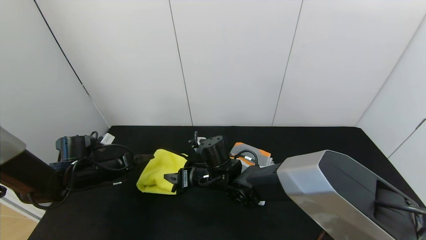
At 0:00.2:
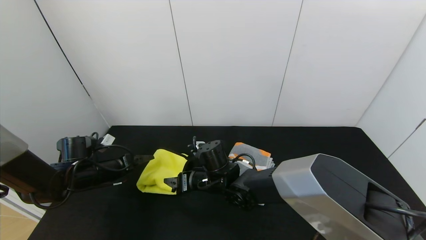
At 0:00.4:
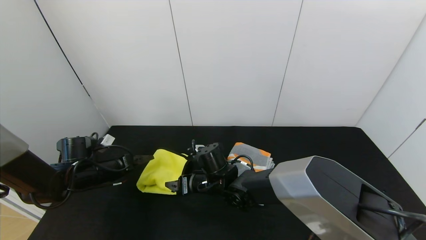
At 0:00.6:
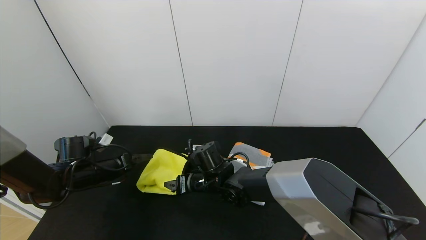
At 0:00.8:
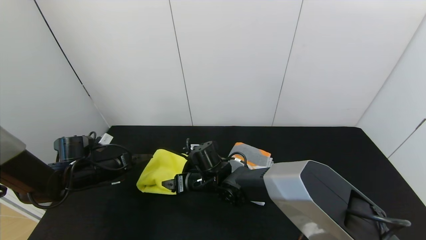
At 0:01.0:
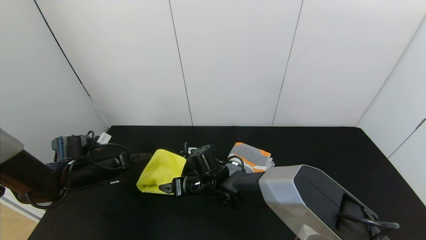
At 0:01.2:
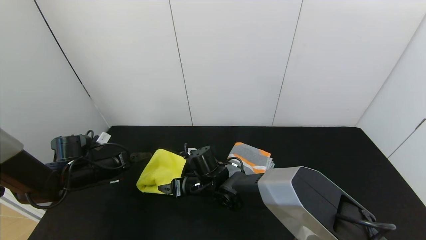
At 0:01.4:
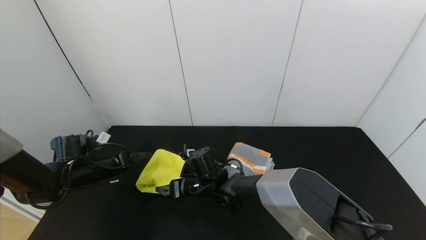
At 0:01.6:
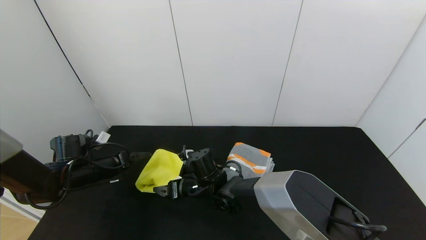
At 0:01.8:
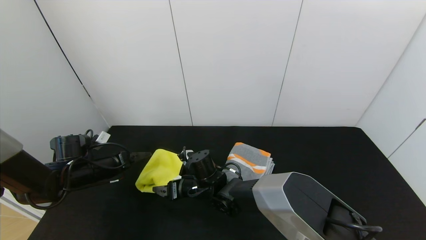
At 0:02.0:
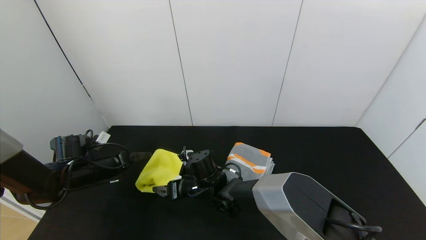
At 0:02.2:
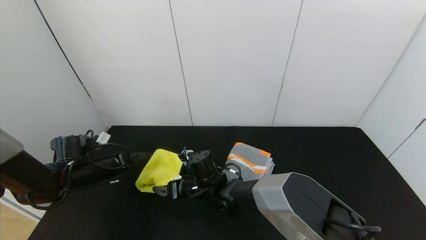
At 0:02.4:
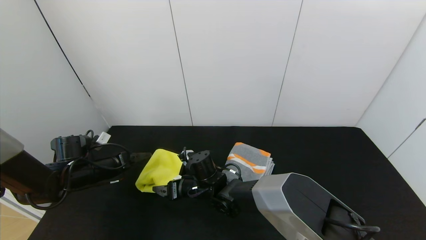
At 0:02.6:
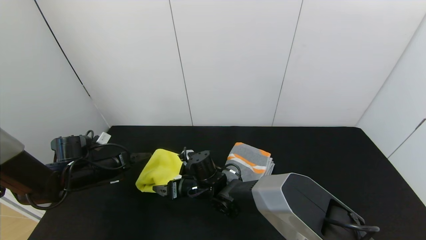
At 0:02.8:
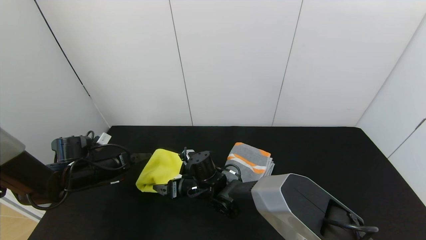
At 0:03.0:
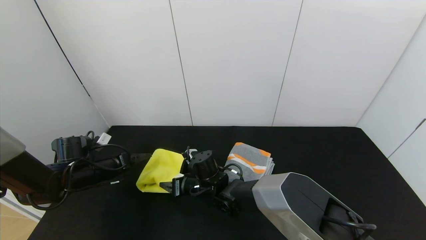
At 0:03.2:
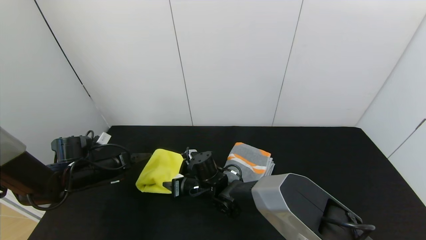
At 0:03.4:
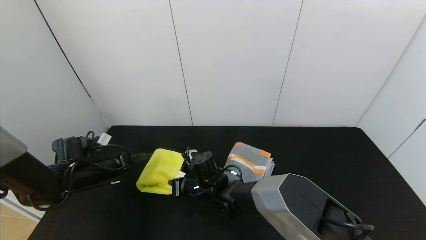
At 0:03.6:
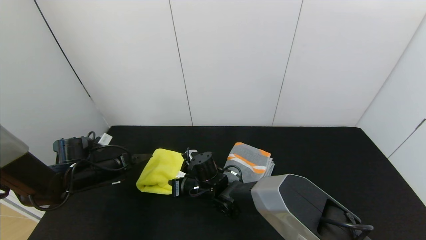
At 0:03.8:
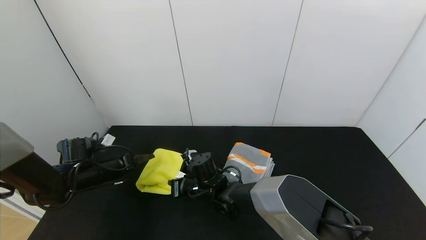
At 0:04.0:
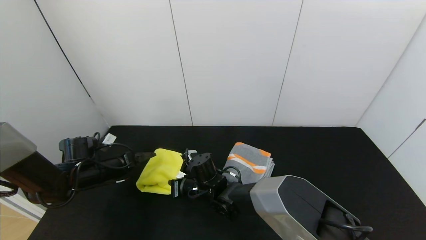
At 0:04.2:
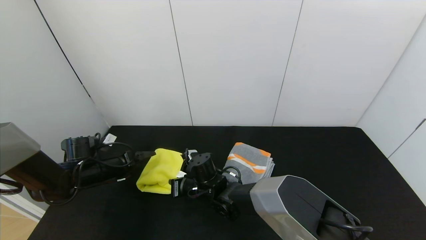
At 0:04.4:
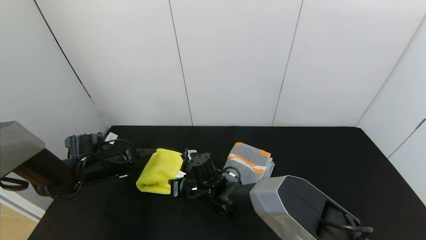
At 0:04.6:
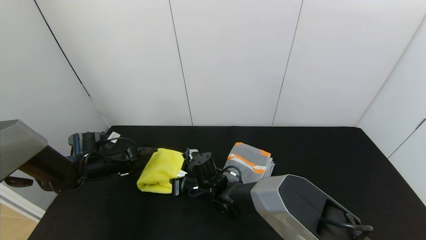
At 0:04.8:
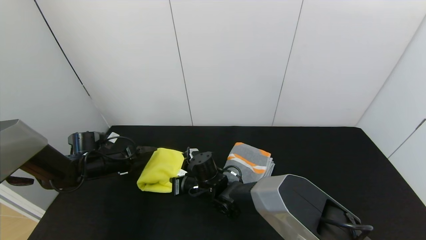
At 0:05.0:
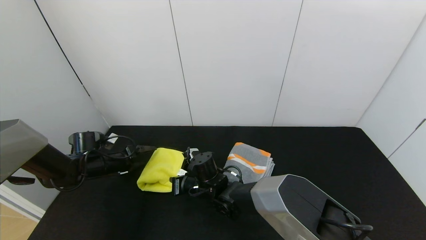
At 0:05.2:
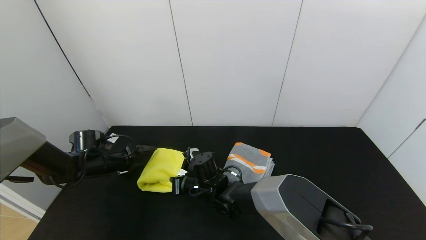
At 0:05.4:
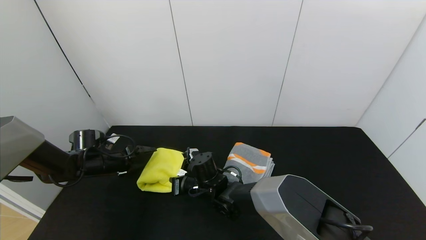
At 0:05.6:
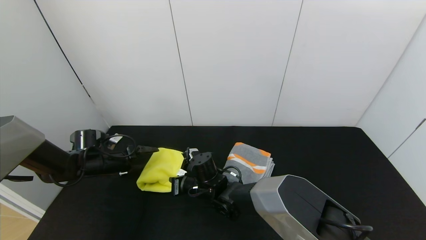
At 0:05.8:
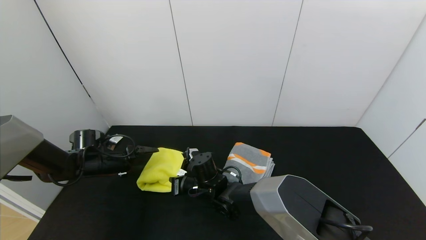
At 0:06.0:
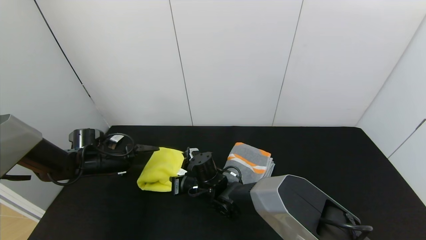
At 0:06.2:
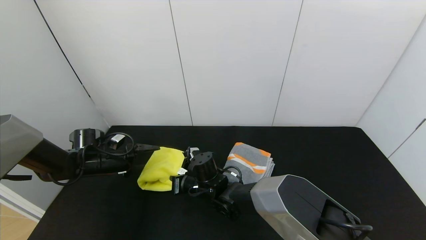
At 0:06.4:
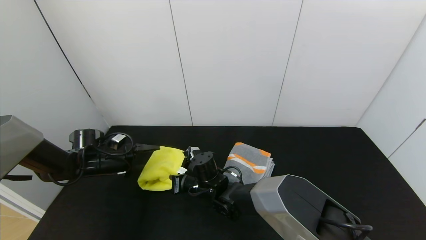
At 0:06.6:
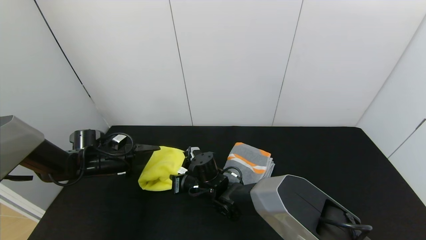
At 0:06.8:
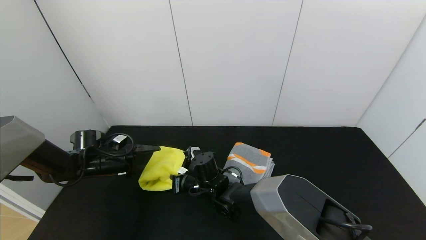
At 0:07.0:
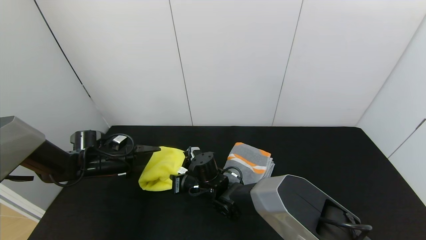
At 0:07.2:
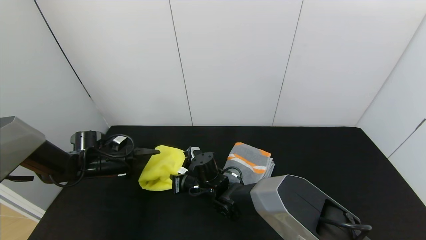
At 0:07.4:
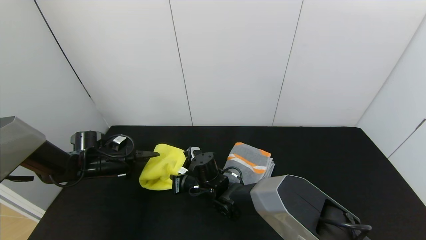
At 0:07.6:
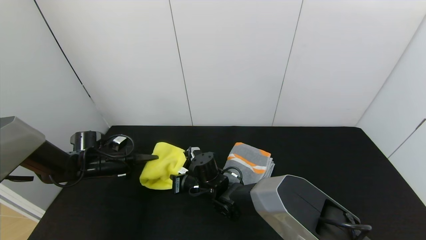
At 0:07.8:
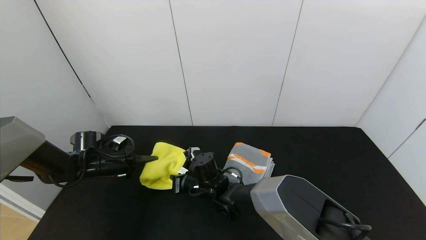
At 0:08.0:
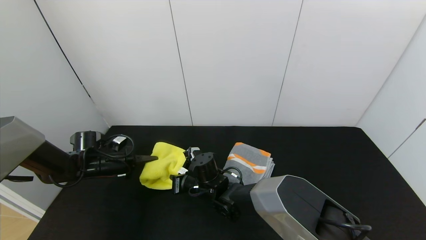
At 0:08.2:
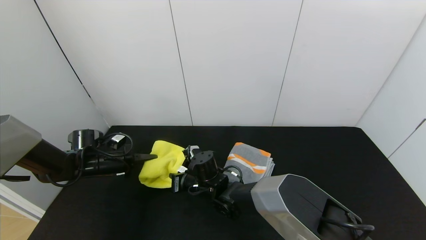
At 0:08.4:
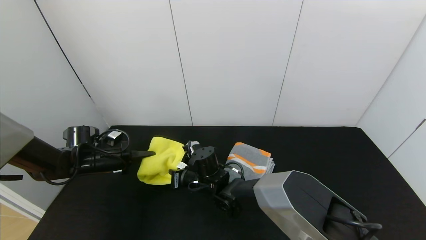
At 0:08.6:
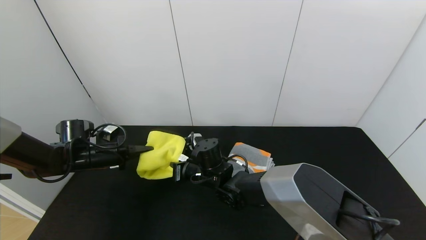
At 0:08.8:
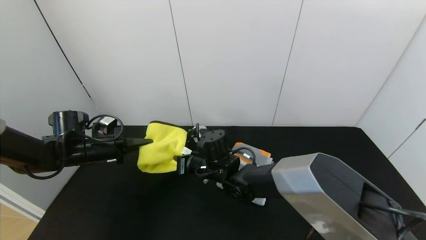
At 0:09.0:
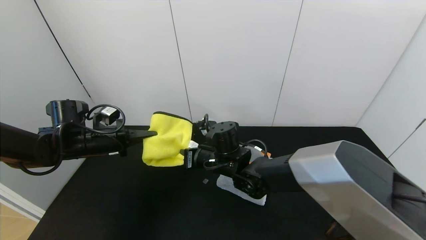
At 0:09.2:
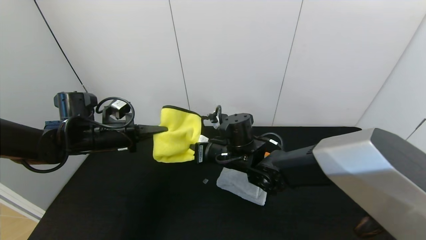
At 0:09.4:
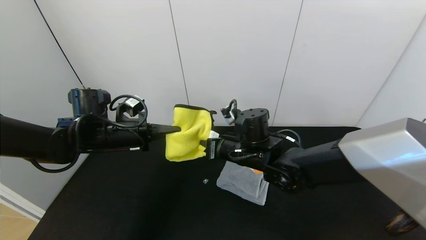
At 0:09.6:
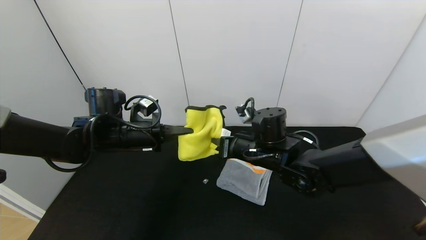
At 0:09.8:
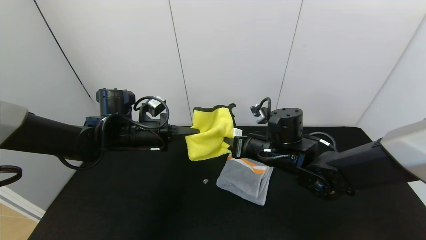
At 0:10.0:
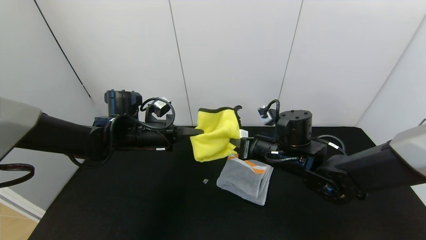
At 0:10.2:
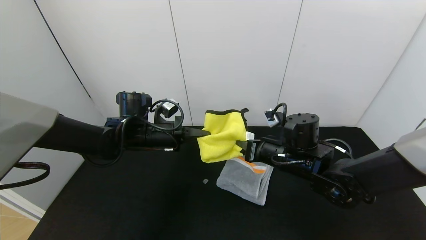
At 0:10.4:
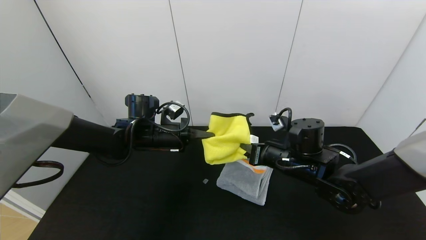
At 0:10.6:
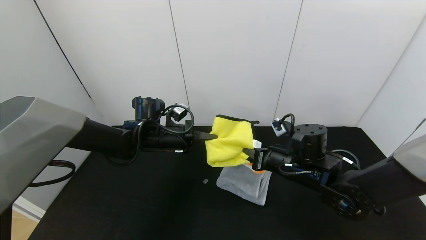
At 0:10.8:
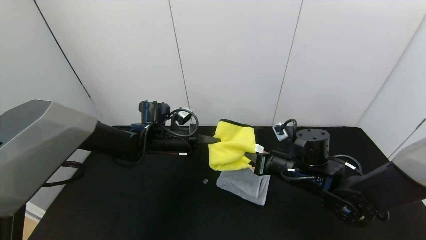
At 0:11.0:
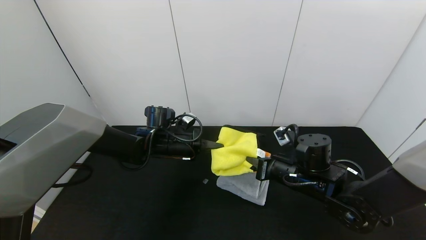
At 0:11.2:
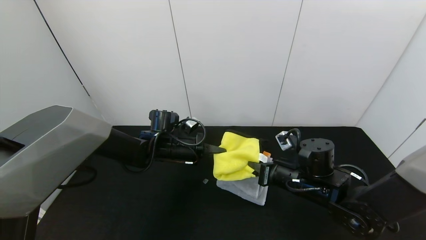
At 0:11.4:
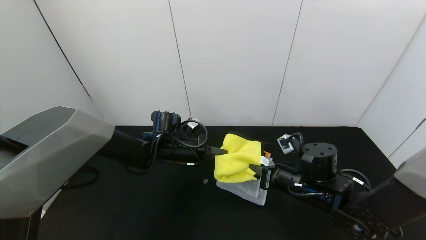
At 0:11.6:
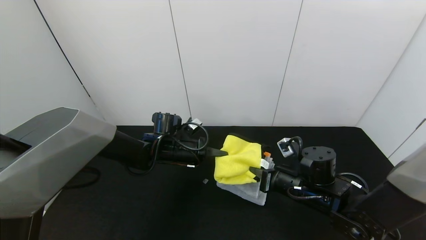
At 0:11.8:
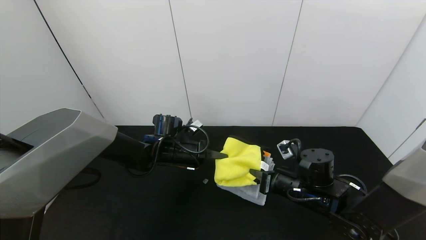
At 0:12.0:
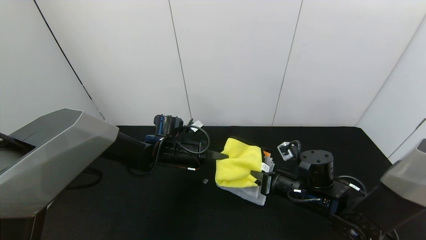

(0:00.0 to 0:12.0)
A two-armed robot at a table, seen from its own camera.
Task of the whole recording: Use the gripper to fold the yellow towel and grey towel in half twice,then put the yellow towel on the grey towel.
0:00.0 - 0:01.6: The right gripper ends up roughly 5 cm from where it was.
0:01.6 - 0:03.0: The grippers move only a little.
0:03.0 - 0:04.4: The right gripper closes.
0:06.0 - 0:07.6: The left gripper closes.
0:07.6 - 0:09.0: The left gripper heads upward, covering some 10 cm. Meanwhile the right gripper heads upward and to the right, covering approximately 10 cm.
0:09.0 - 0:10.4: Both grippers move to the right, roughly 15 cm.
0:10.4 - 0:12.0: The grippers both shift downward by approximately 5 cm.

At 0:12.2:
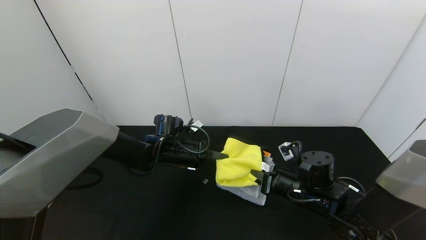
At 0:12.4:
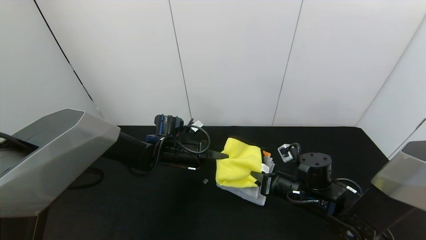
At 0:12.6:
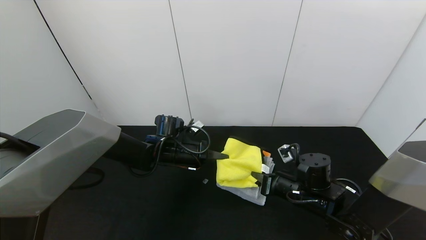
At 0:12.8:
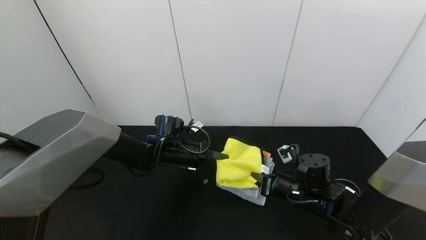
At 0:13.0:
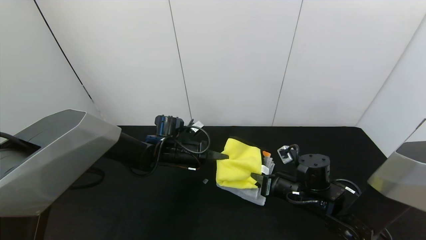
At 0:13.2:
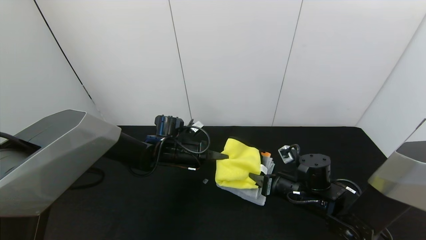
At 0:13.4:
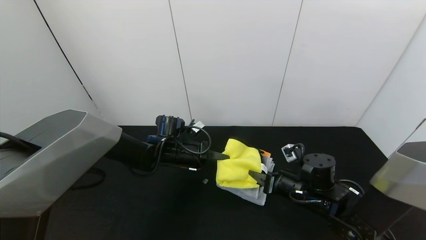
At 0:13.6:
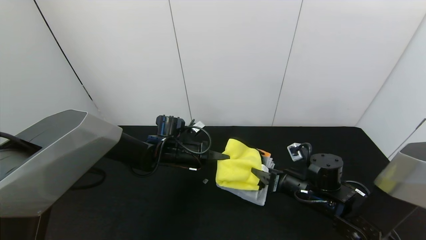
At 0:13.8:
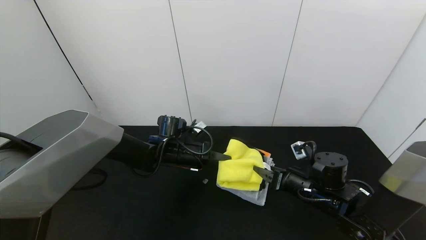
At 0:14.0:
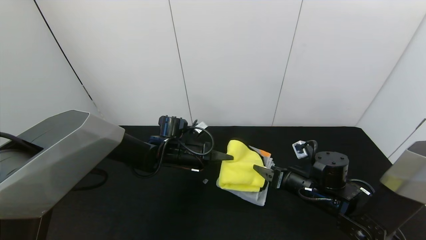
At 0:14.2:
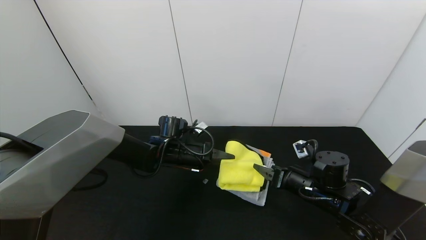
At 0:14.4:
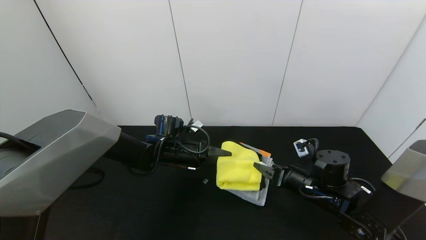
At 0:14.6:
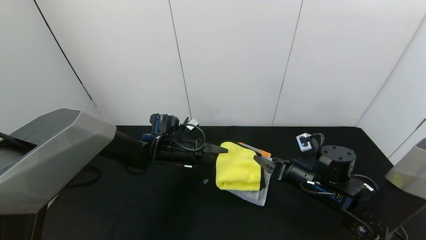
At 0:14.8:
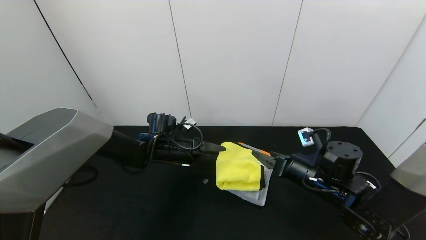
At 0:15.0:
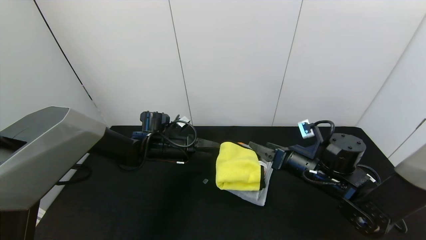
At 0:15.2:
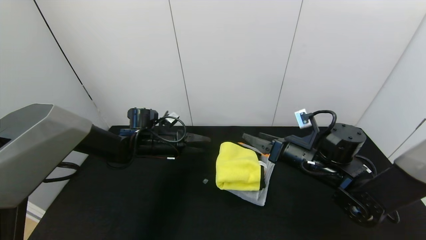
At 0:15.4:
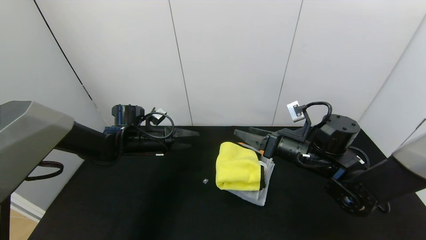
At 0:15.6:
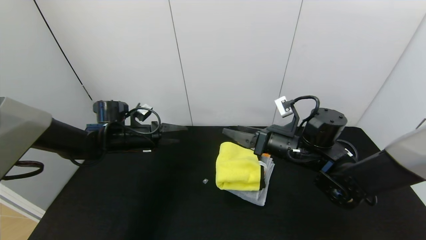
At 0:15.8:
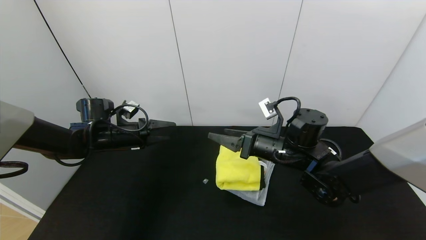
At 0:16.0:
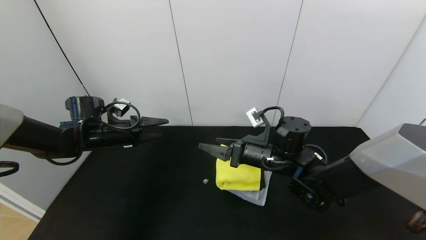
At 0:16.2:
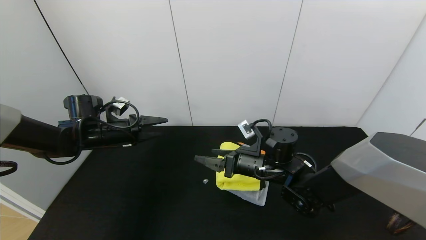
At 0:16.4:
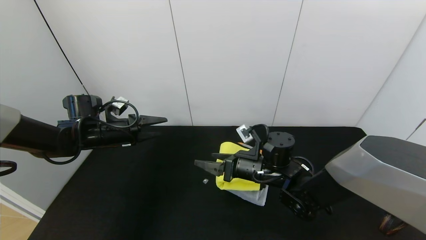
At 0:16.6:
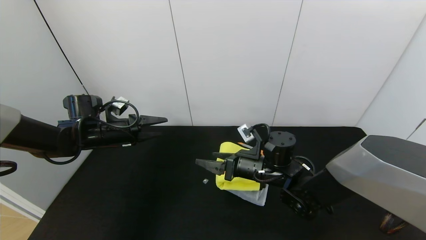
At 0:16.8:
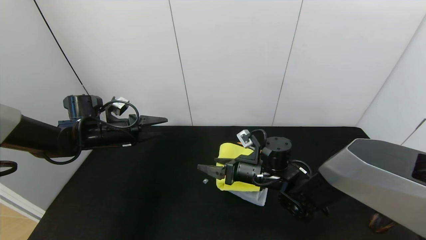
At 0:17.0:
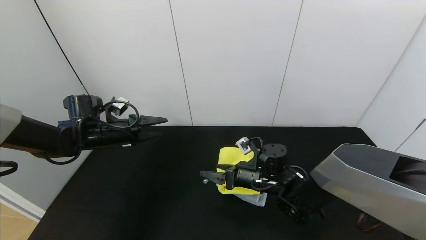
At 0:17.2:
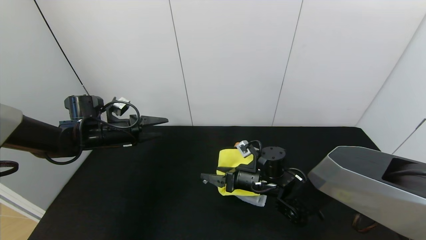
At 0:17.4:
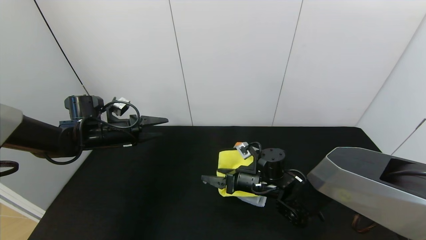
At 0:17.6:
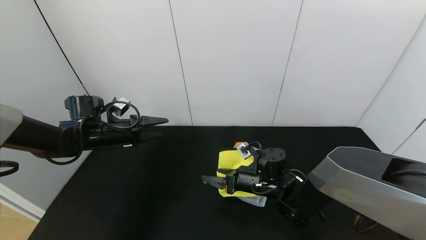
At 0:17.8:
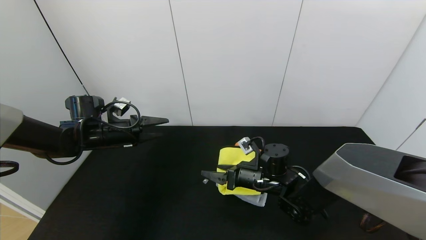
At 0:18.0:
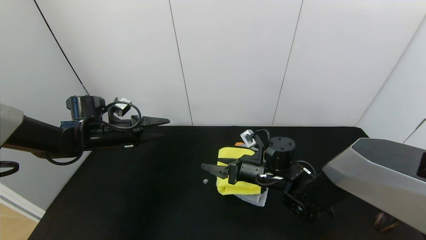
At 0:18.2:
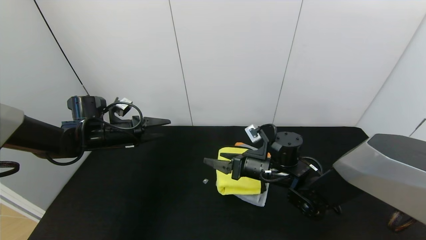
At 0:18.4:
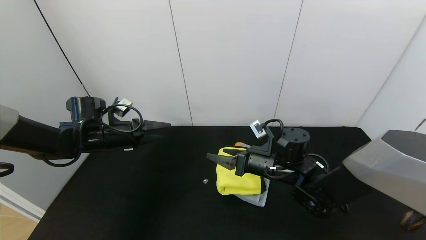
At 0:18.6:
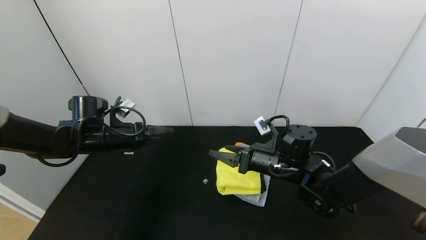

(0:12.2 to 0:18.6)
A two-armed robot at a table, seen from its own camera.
Task of the whole recording: Use the gripper to fold the yellow towel and grey towel in half twice,then put the yellow towel on the grey towel.
Step, 0:12.2 - 0:14.4: Place the yellow towel on the gray towel with the left gripper.
Step, 0:12.2 - 0:14.4: Place the yellow towel on the gray towel with the right gripper.
Step, 0:14.6 - 0:18.0: Press the yellow towel with the right gripper.
0:12.2 - 0:13.8: The right gripper opens its fingers.
0:13.8 - 0:15.4: The right gripper goes about 10 cm upward, while the left gripper travels to the left by roughly 10 cm, and opens.
0:15.4 - 0:17.0: The right gripper travels downward and to the left by roughly 15 cm; the left gripper travels to the left by roughly 10 cm.
0:17.0 - 0:18.6: The right gripper moves upward, approximately 5 cm.
